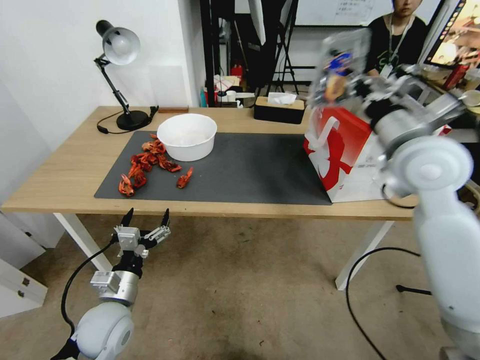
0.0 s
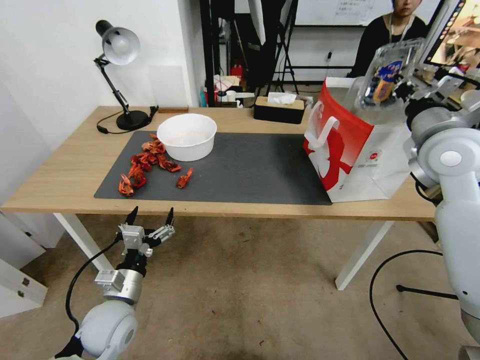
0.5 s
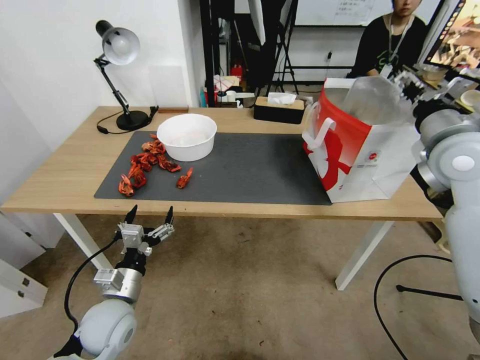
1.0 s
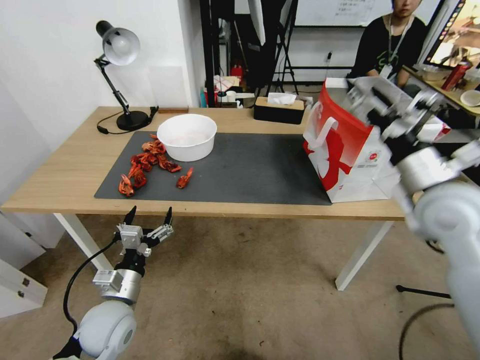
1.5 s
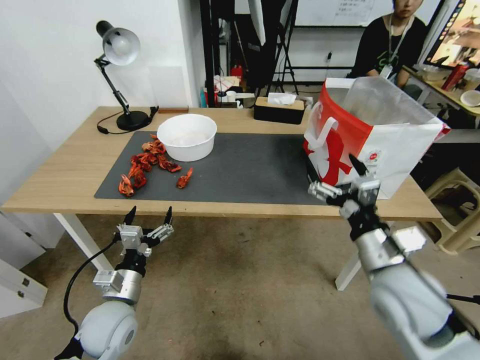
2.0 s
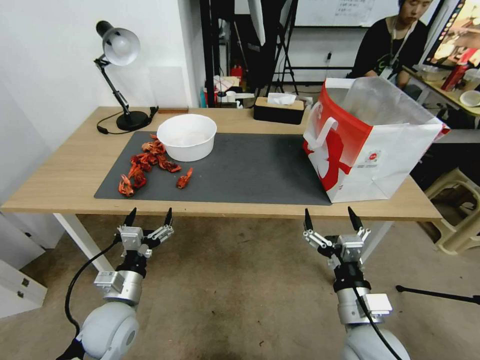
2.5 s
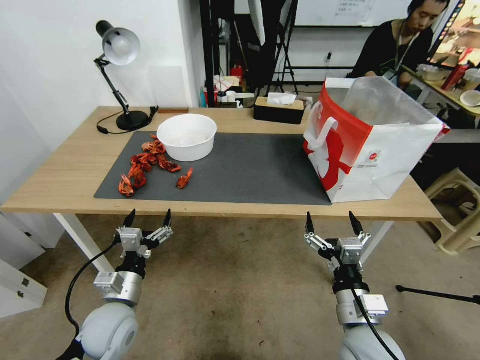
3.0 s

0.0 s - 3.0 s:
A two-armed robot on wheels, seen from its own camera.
Task of the whole recording: Close the takeout container lid, then place the container into the takeout bag.
0.0 s - 1.5 s: The right gripper moves downward, roughly 5 cm, and opens up.
1.5 s - 3.0 s: The right gripper is displaced downward, backward and to the left by approximately 30 cm.

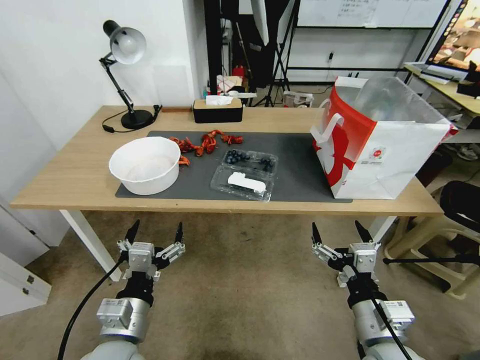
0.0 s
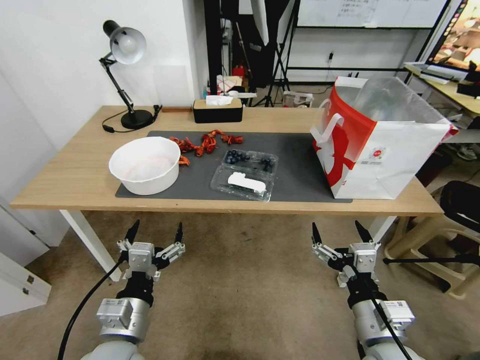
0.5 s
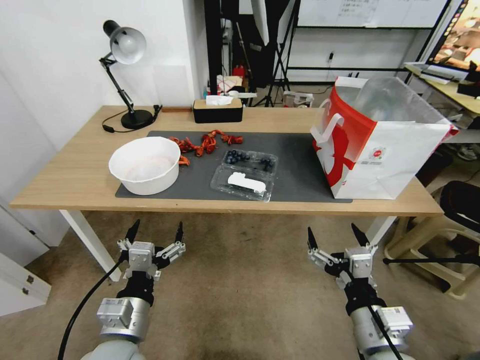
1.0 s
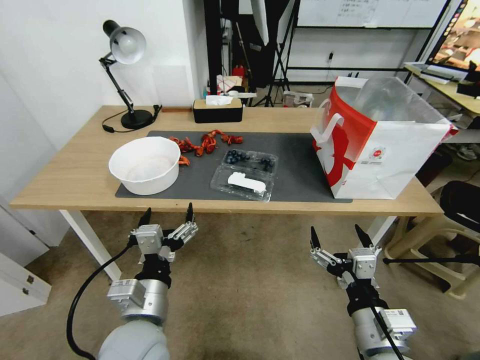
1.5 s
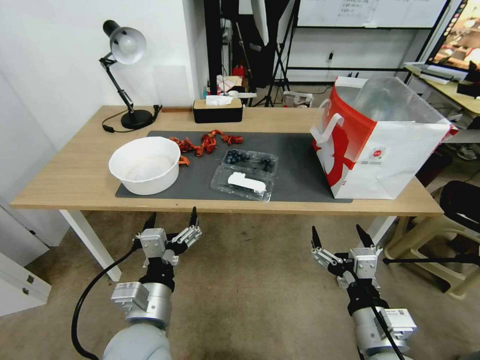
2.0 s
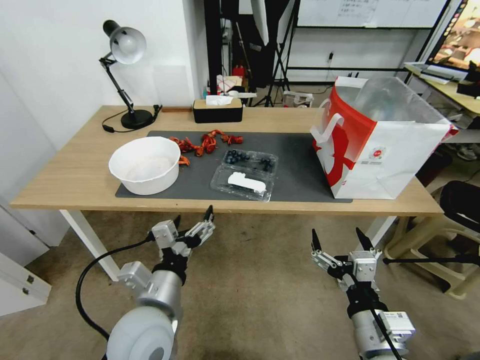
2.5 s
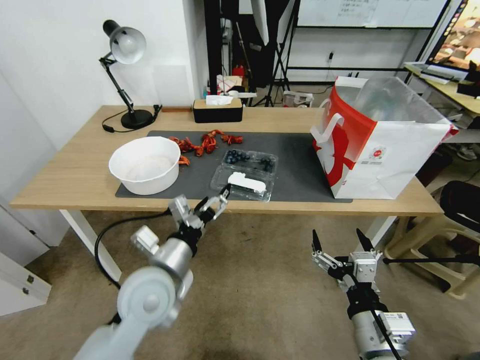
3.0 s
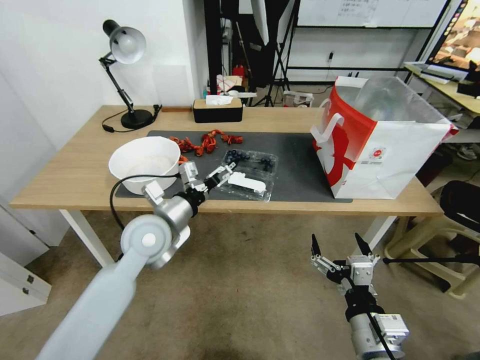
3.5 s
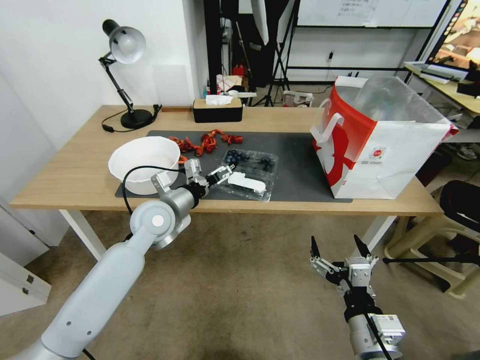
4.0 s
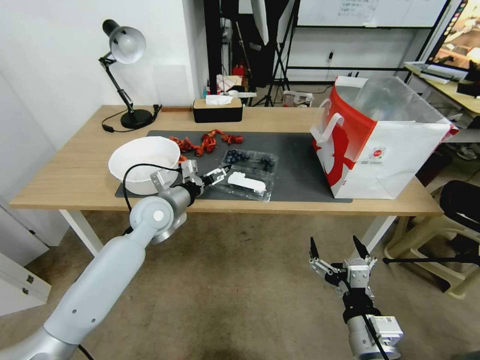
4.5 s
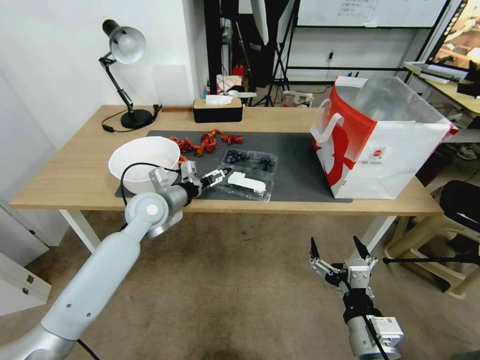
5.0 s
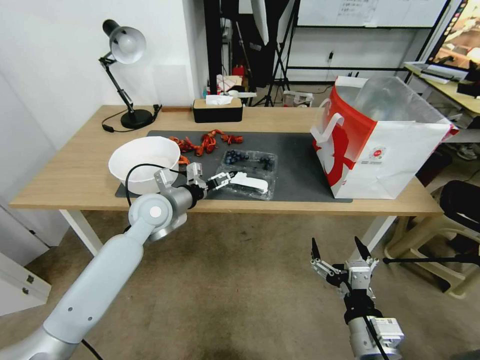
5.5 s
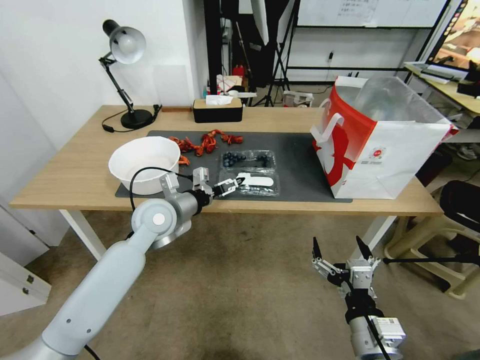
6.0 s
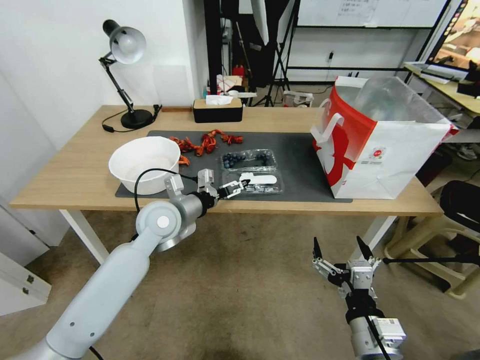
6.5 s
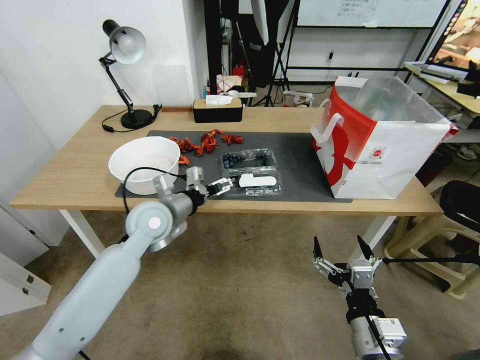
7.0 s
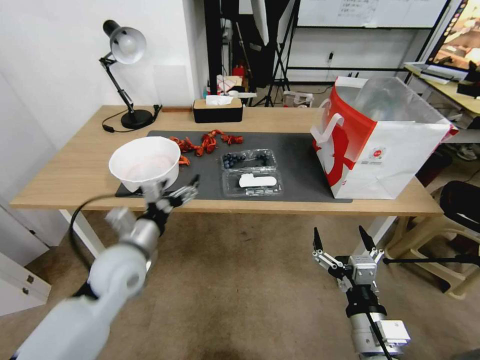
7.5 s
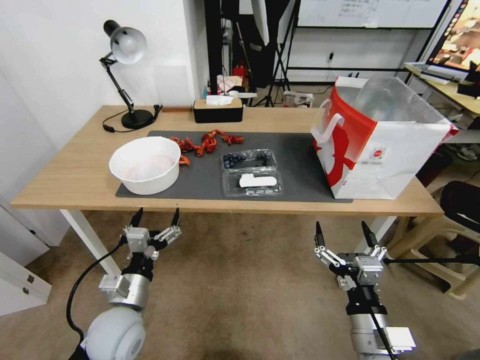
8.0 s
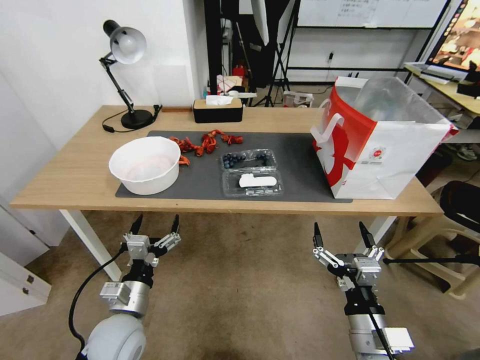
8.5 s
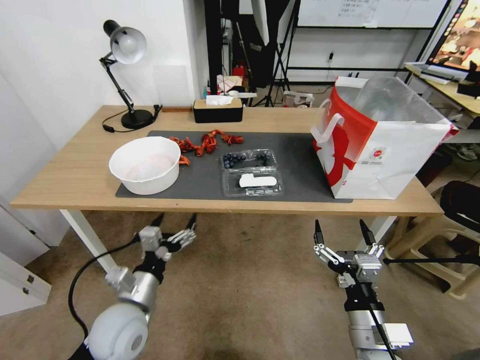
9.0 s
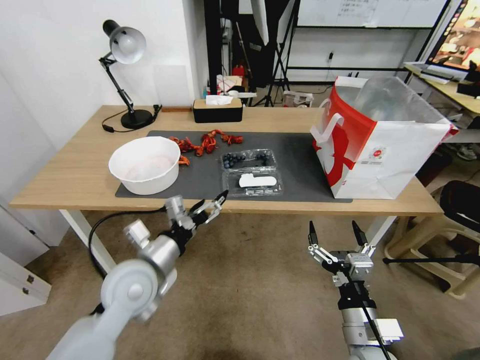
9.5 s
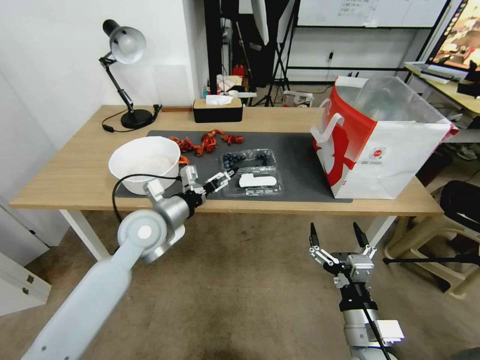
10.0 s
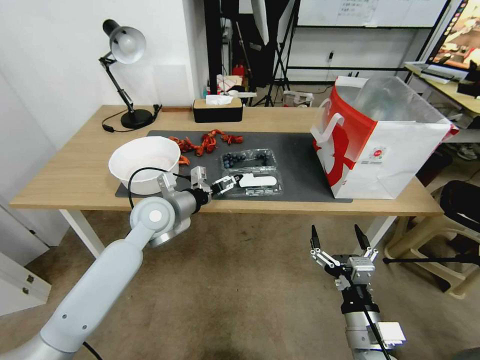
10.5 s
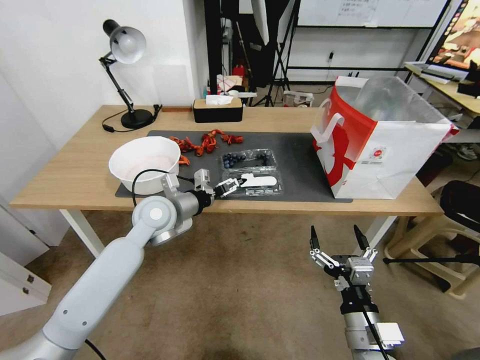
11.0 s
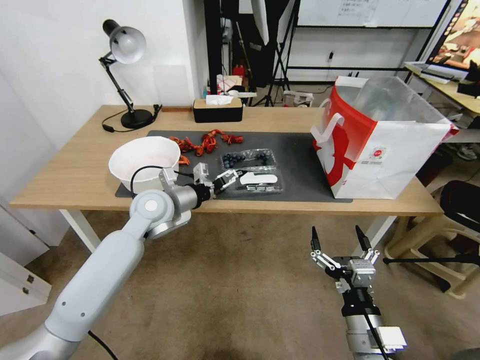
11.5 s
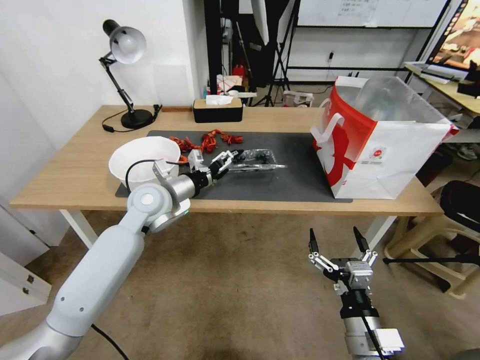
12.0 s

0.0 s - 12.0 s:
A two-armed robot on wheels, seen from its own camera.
Task of the whole recording: Close the takeout container lid, then place the container into the takeout bag.
2.0 s - 4.0 s: The left gripper heads forward, covering roughly 25 cm.
4.0 s - 6.0 s: There are only small adjustments of the grippers.
6.0 s - 8.0 s: The left gripper goes about 20 cm backward and downward.
8.0 s - 10.0 s: The left gripper heads forward and upward, covering about 20 cm.
10.0 s - 12.0 s: The left gripper goes about 5 cm forward.

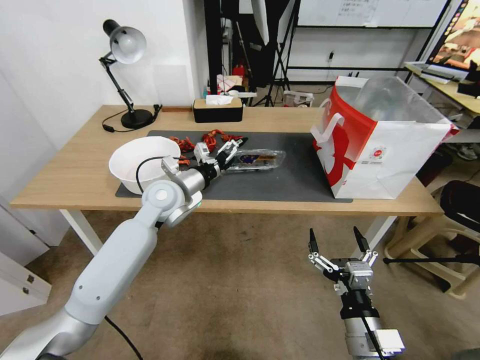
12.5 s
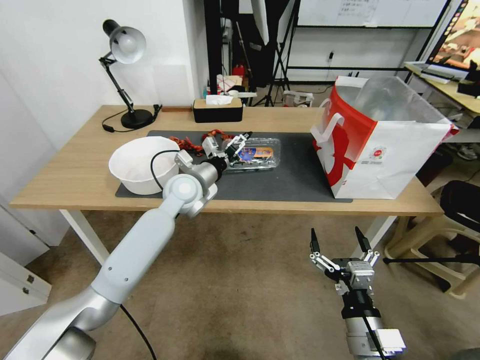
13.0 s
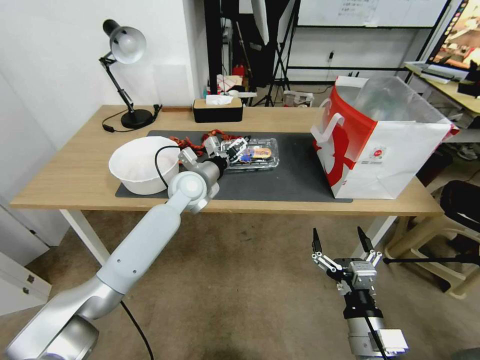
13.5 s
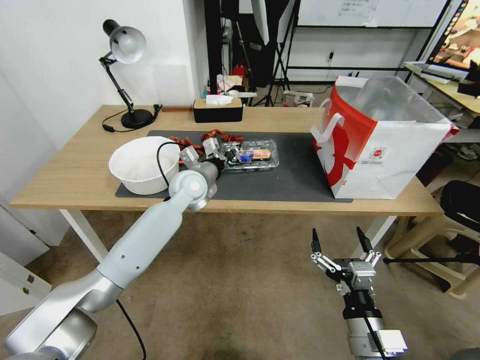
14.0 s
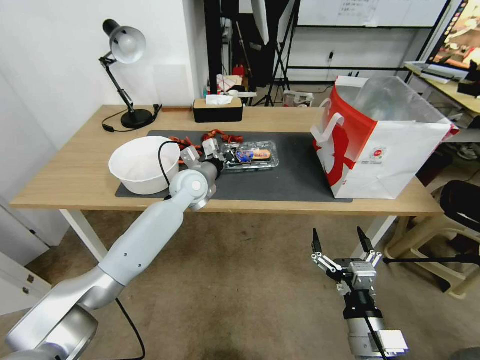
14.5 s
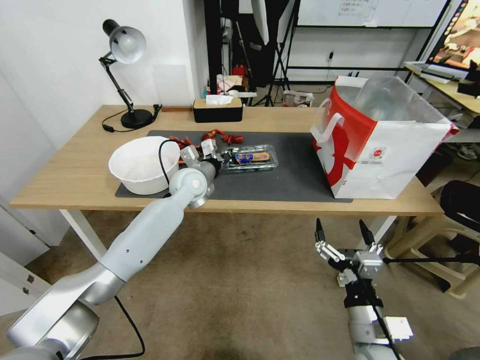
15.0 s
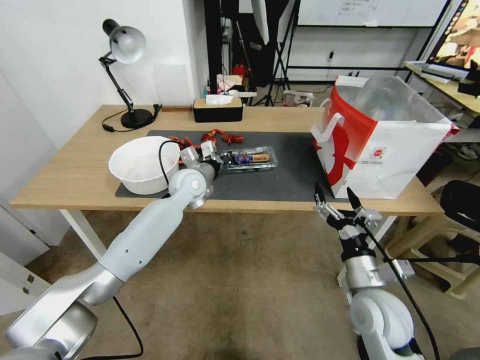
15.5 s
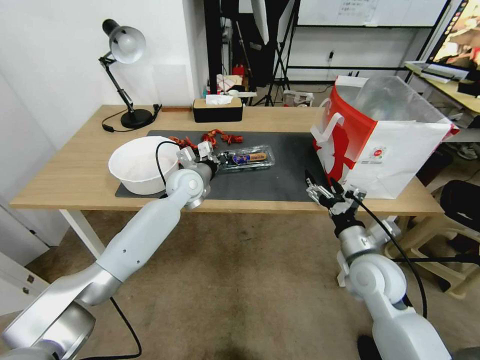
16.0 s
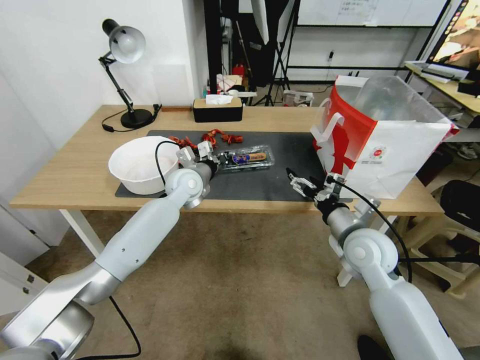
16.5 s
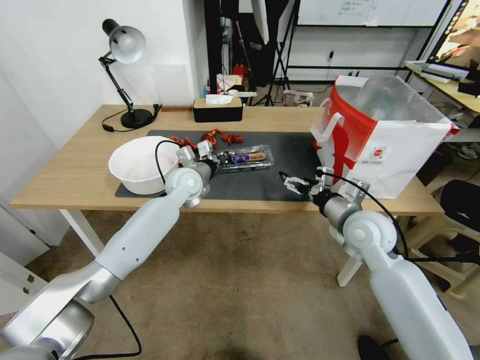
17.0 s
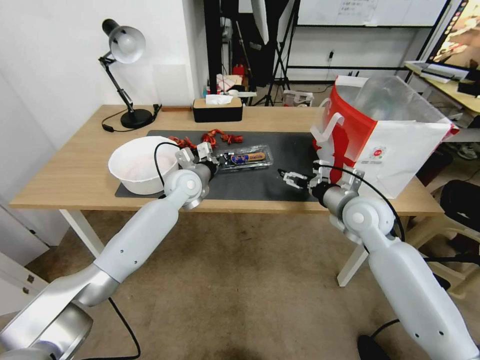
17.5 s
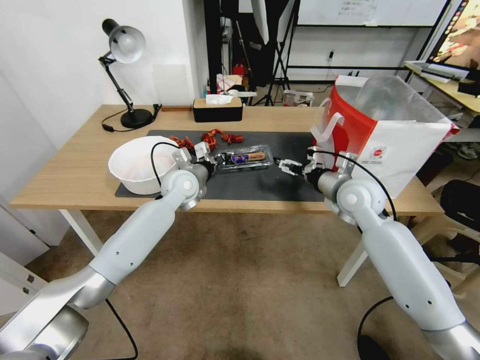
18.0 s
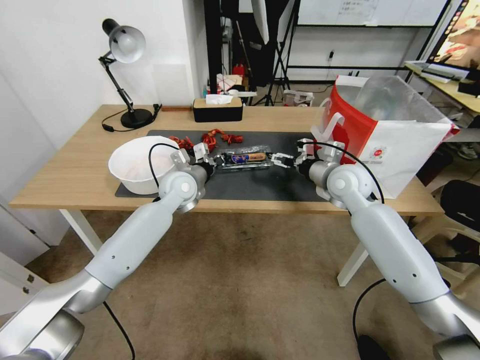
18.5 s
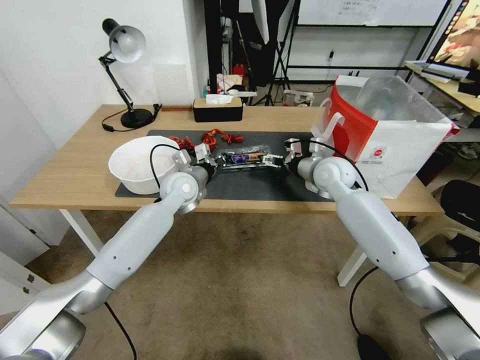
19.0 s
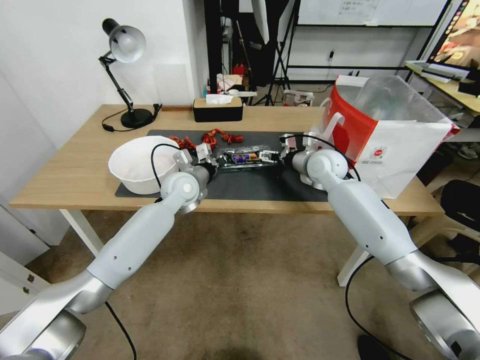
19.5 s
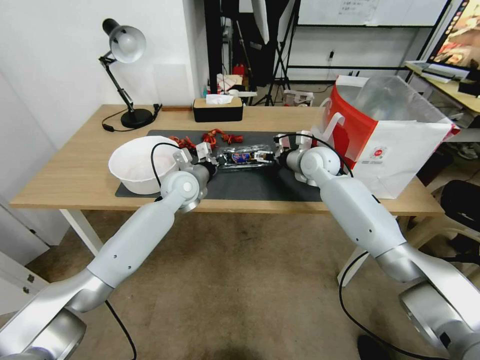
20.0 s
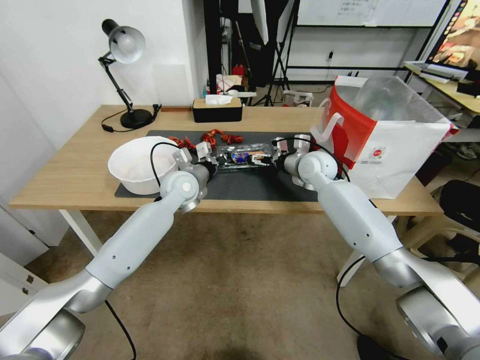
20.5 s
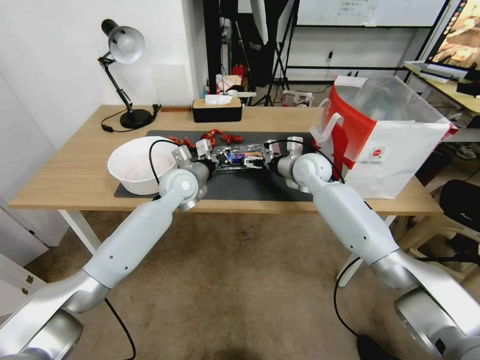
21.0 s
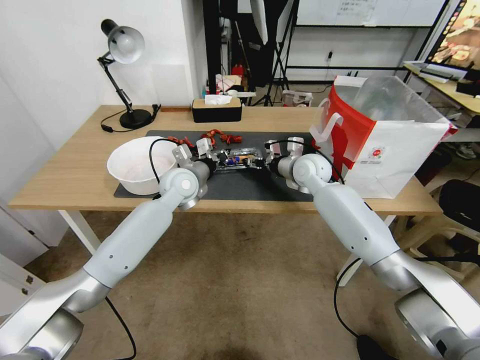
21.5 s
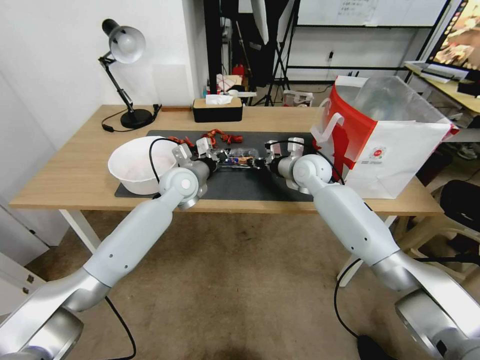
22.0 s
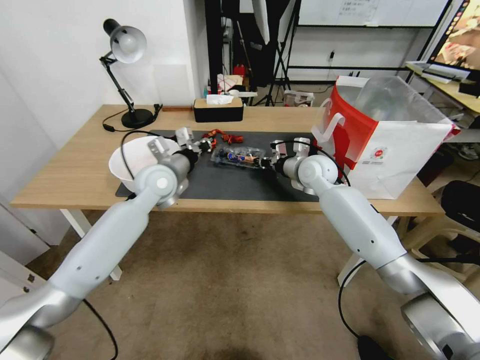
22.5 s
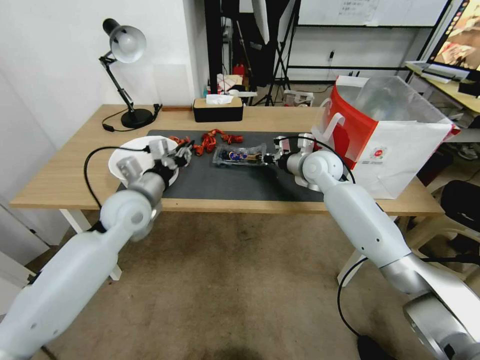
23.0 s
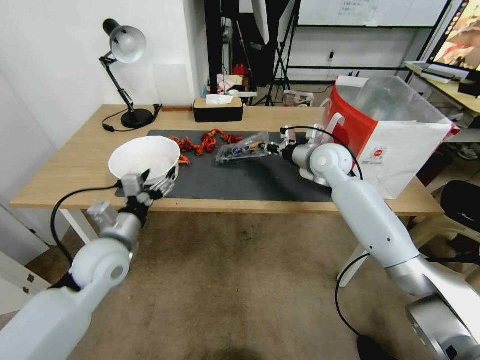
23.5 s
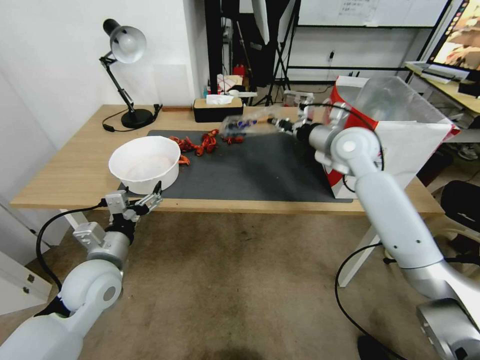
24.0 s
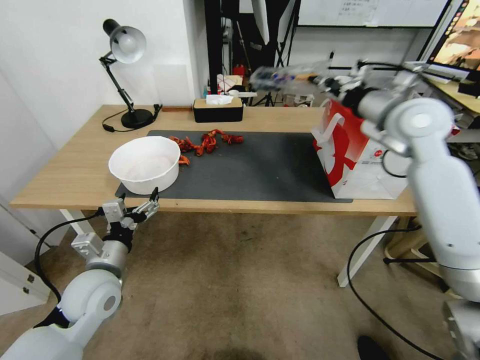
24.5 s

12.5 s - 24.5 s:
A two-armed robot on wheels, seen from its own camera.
Task of the whole recording: Close the takeout container lid, then place the container into the takeout bag.
12.5 s - 14.5 s: The left gripper moves forward, roughly 5 cm, and closes.
14.5 s - 16.5 s: The right gripper heads forward, covering some 20 cm.
16.5 s - 18.5 s: The right gripper moves forward and upward, approximately 15 cm.
18.5 s - 20.5 s: The right gripper shifts approximately 10 cm forward and to the left.
20.5 s - 22.5 s: The right gripper closes up. Meanwhile the left gripper shifts by roughly 5 cm.
22.5 s - 24.5 s: The right gripper goes roughly 25 cm upward and to the right, while the left gripper travels backward, downward and to the left by approximately 25 cm, and opens its fingers.
